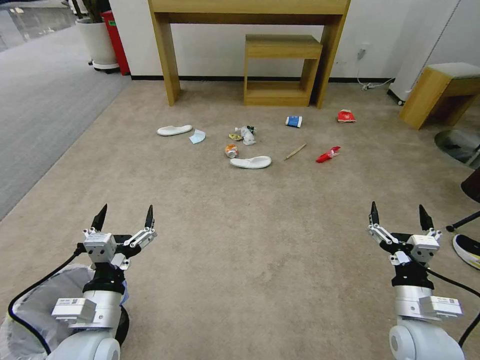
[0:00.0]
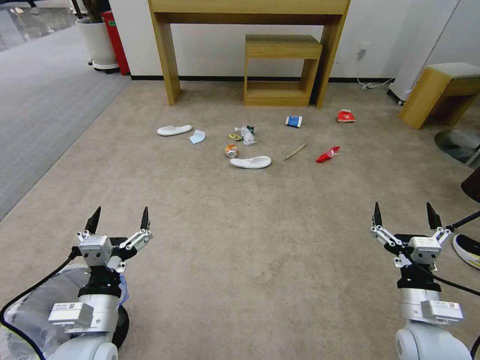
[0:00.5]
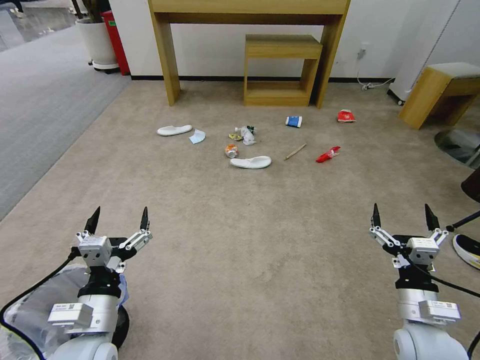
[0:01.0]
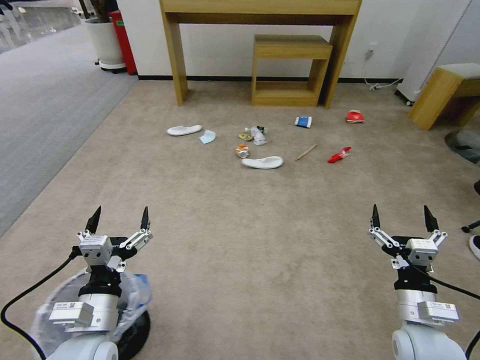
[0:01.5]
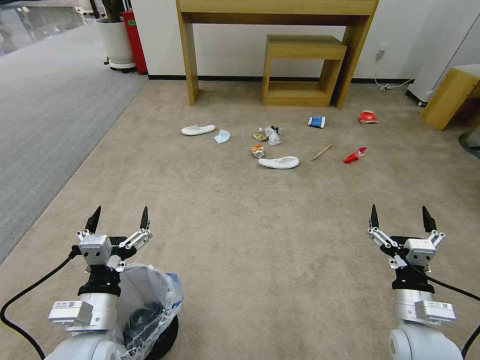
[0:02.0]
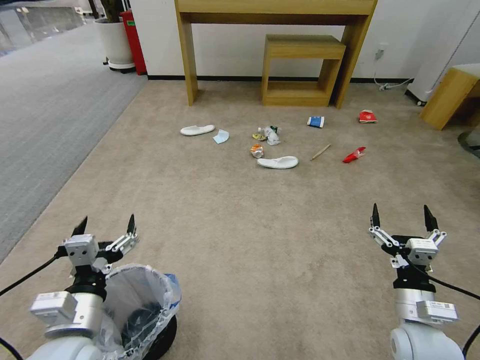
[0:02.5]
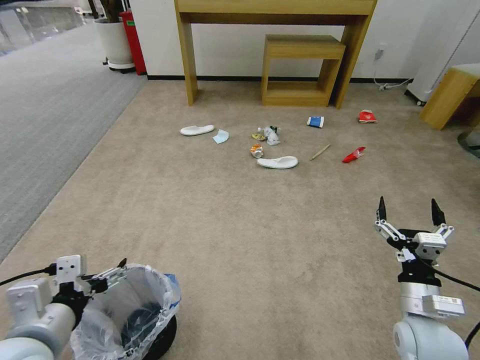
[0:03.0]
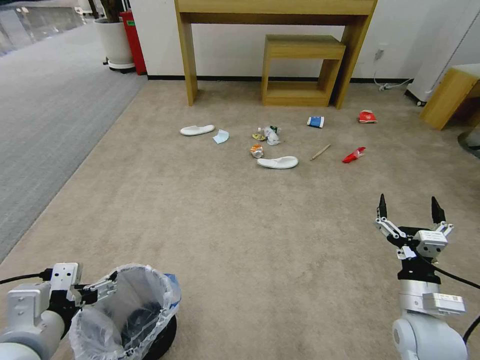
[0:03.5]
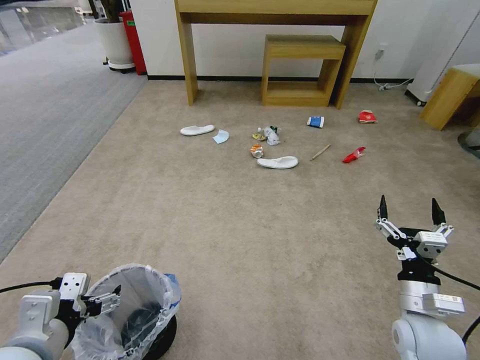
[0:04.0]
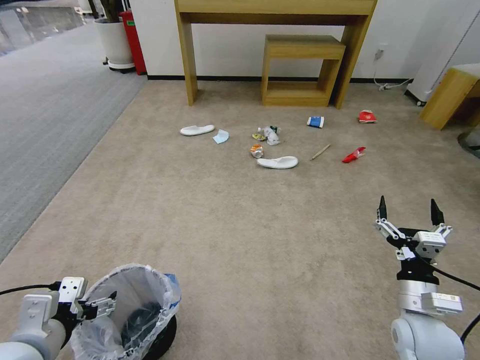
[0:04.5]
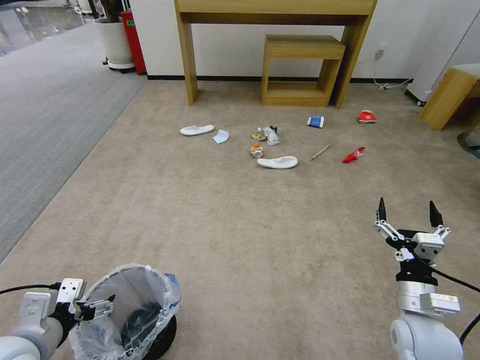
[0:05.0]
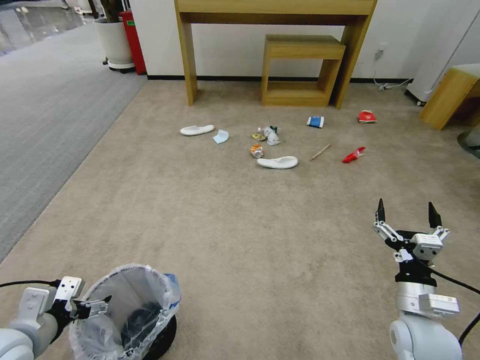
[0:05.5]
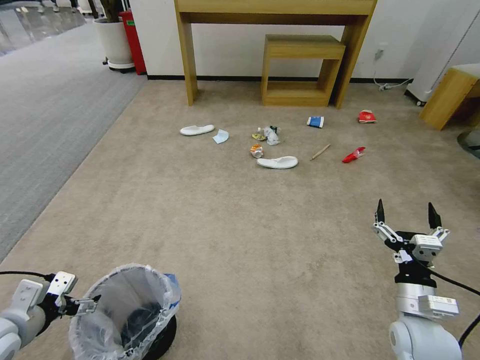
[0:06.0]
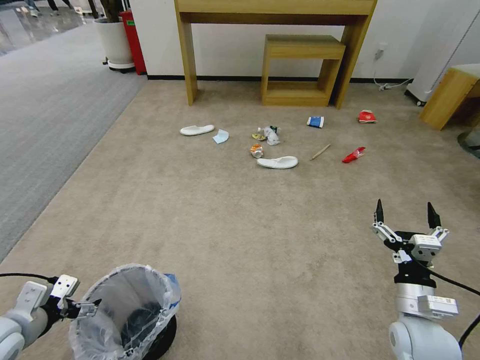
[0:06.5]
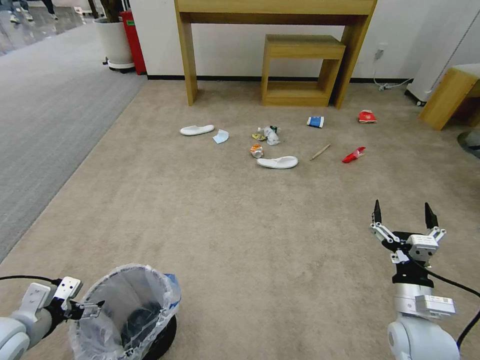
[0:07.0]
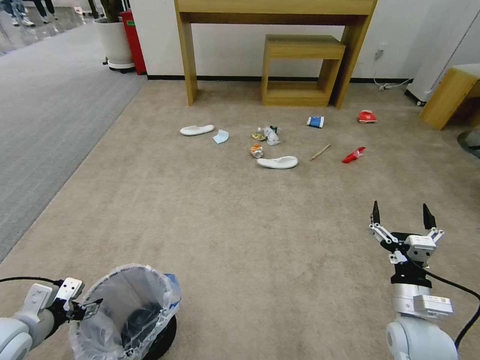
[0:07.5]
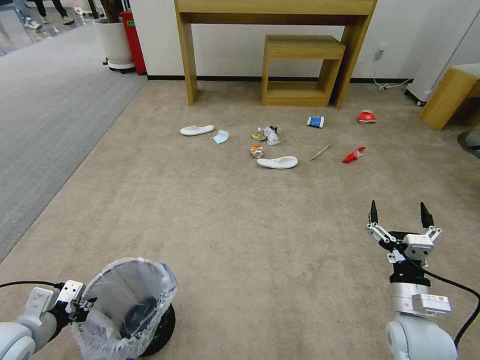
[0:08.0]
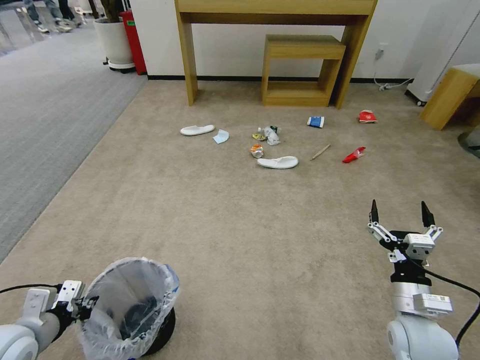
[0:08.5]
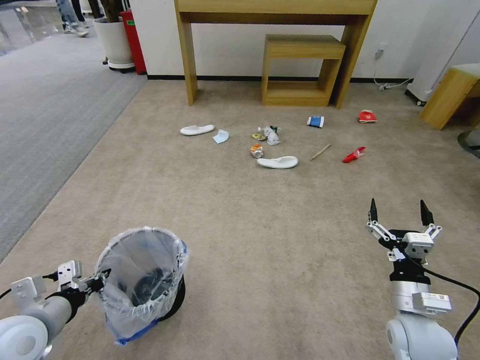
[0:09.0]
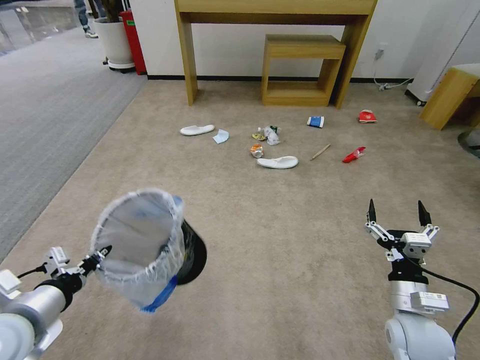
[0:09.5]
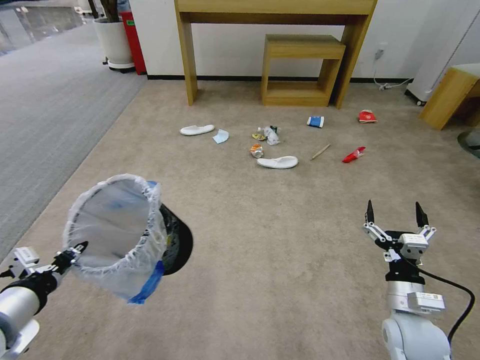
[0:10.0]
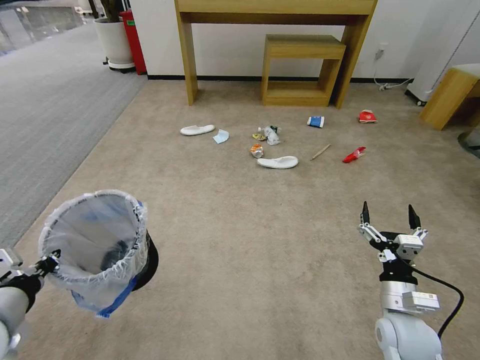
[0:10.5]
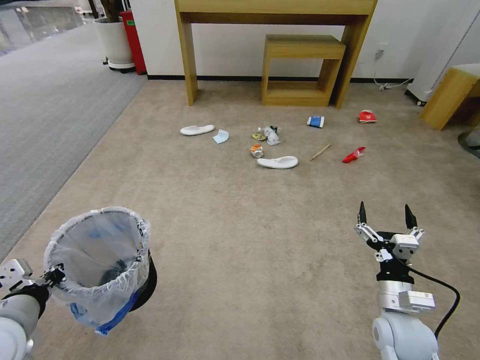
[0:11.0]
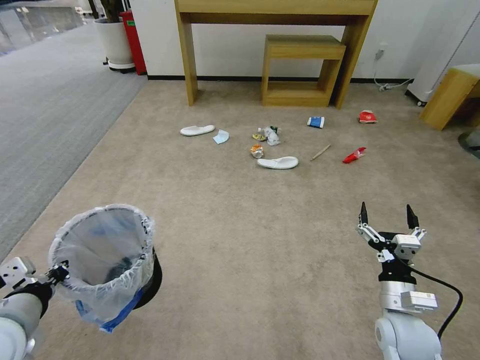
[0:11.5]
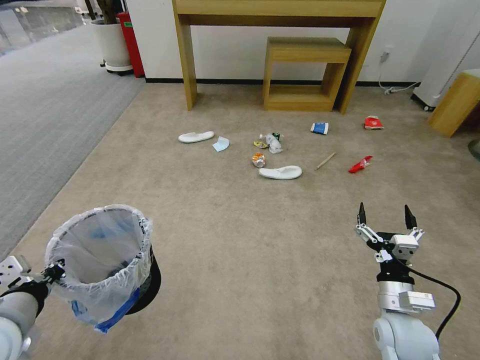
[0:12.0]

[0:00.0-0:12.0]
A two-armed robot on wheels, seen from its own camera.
Task of the whole recording: Pick up the trash bin and place the garbage on the floor into it.
0:02.0 to 0:04.0: The left gripper goes roughly 10 cm upward and to the left.
0:04.0 to 0:06.0: The left gripper travels to the left, forward and downward by some 15 cm.
0:06.0 to 0:08.0: The left gripper closes its fingers.
0:08.0 to 0:10.0: The left gripper shifts some 10 cm upward.

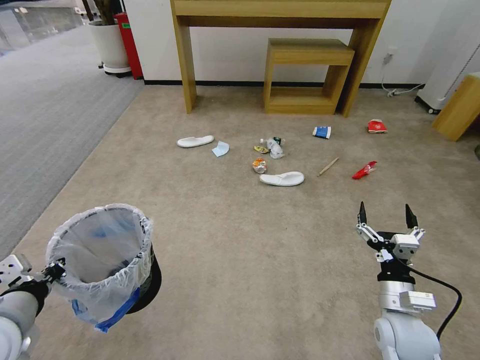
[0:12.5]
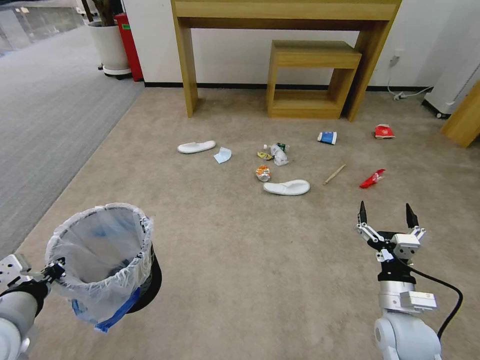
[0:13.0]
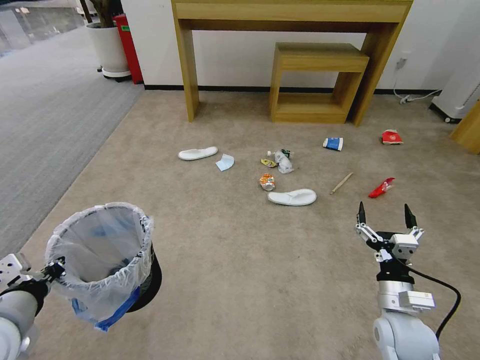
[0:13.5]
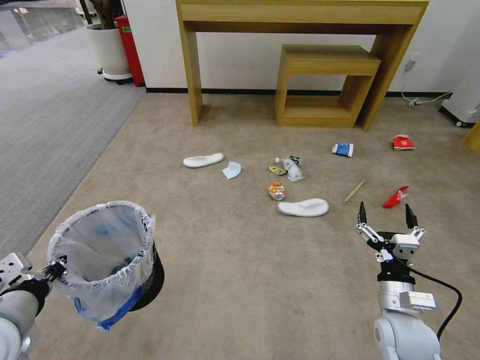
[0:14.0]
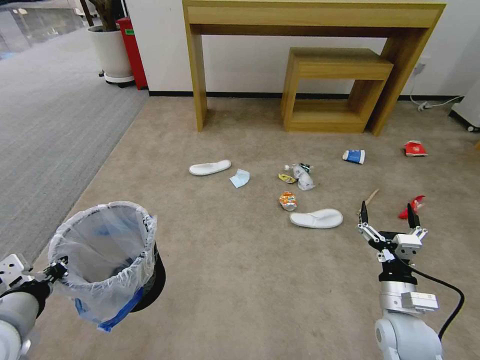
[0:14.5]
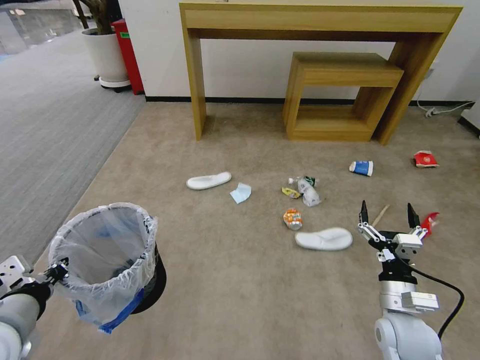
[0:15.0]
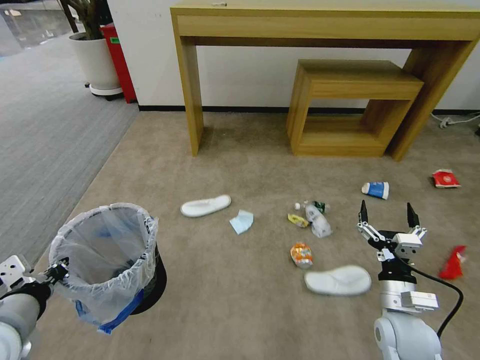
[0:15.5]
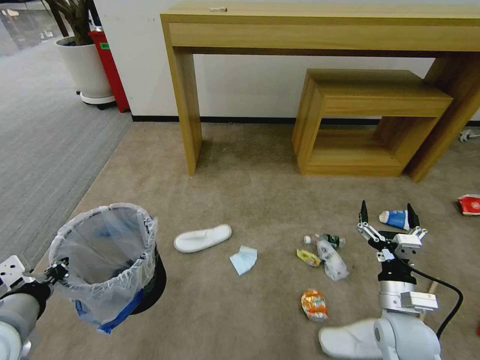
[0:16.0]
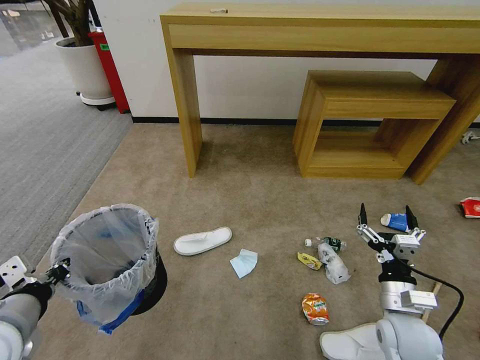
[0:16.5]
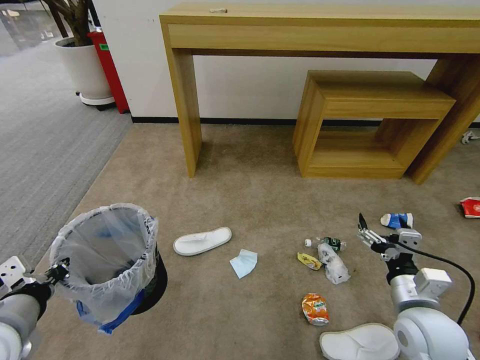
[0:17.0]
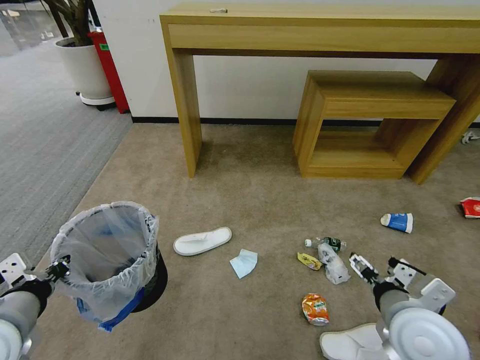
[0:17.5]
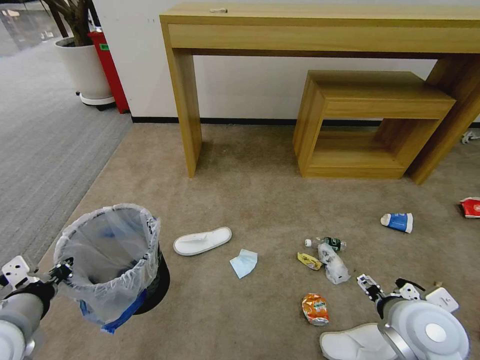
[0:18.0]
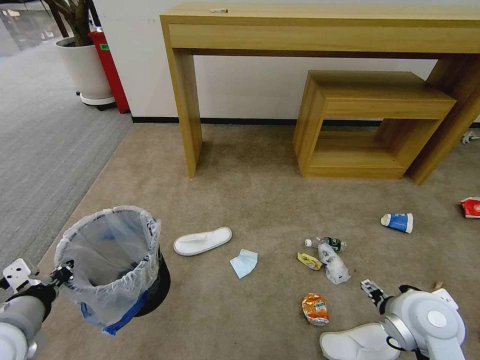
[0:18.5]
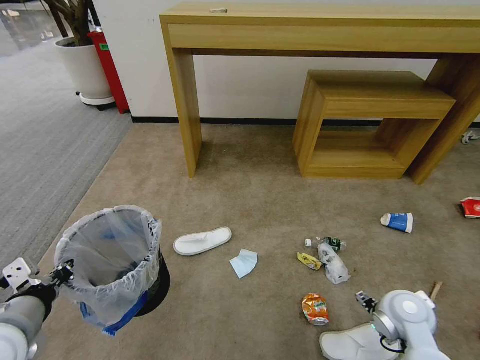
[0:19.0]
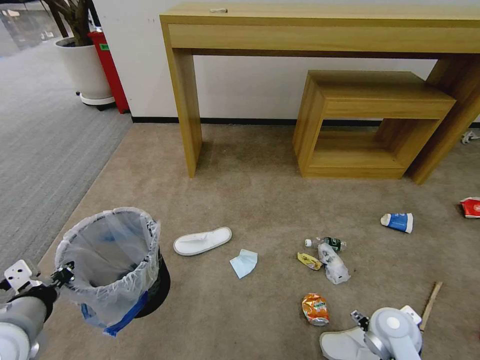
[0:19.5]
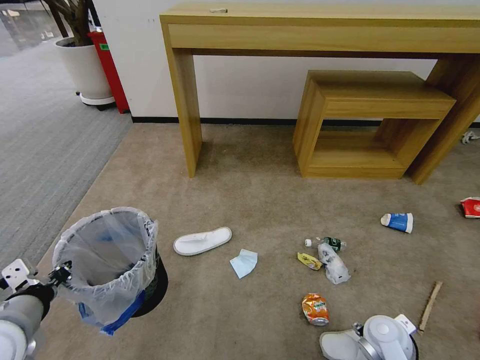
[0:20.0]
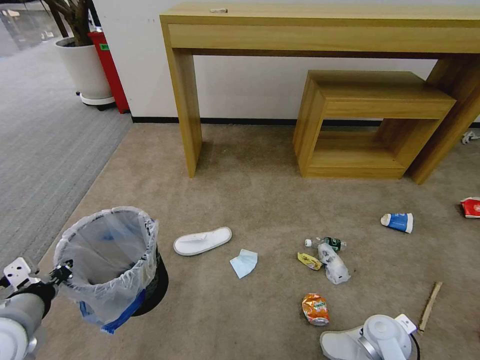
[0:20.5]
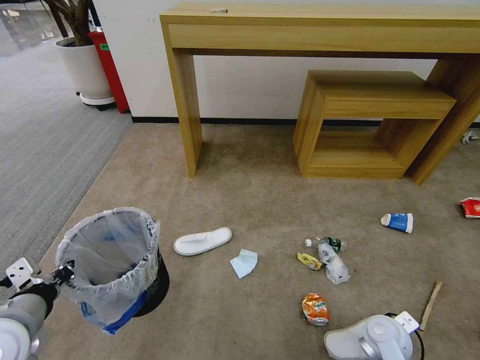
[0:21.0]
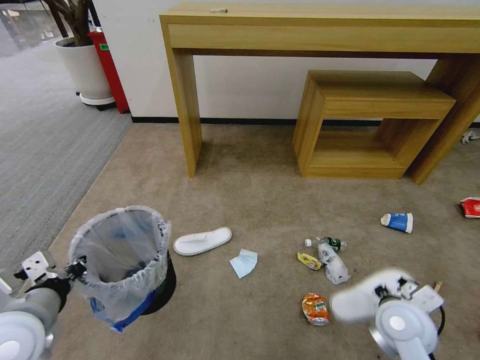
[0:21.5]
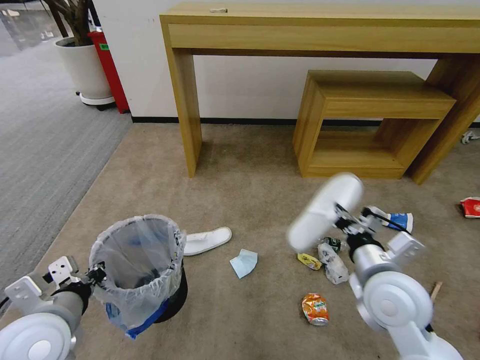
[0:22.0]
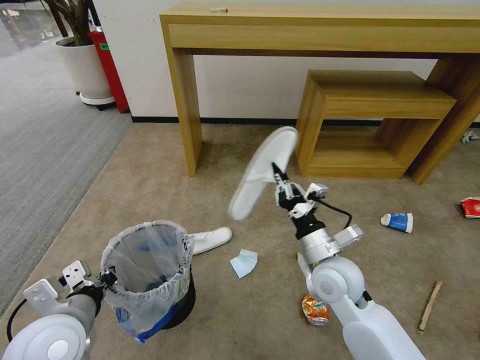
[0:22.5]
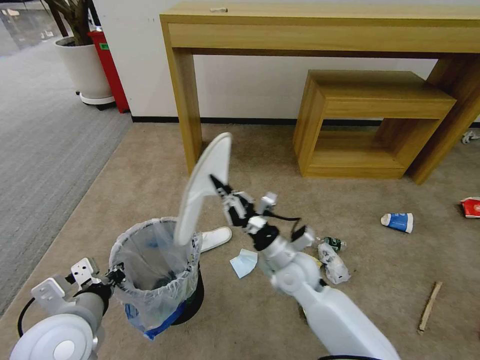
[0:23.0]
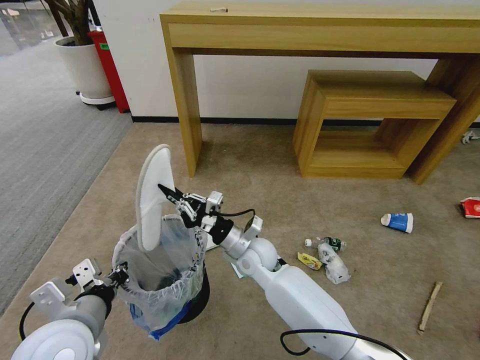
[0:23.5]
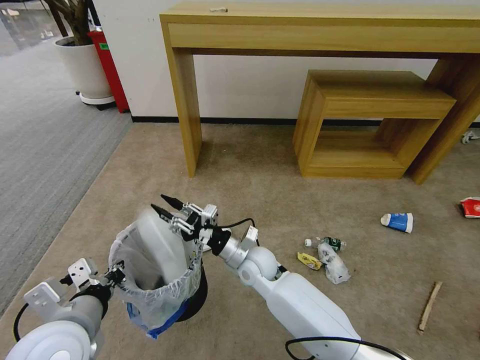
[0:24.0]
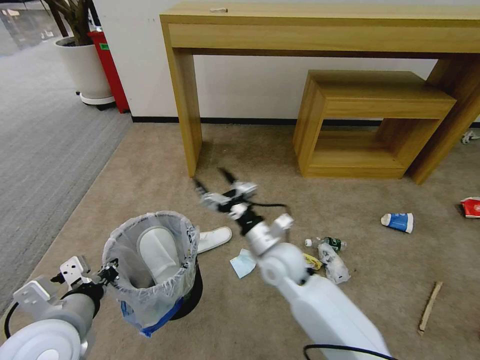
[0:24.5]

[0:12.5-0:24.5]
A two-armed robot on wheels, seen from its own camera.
Task of the whole recording: Pick up the trash bin and place the garbage on the floor into it.
0:16.5 to 0:18.5: The right gripper heads upward, covering roughly 10 cm.
0:18.5 to 0:20.5: The right gripper travels downward by roughly 20 cm, and closes up.
0:20.5 to 0:22.5: The left gripper travels to the right by roughly 5 cm. Meanwhile the right gripper goes some 25 cm upward and to the left.
0:22.5 to 0:24.5: The right gripper travels to the left by about 10 cm, and opens.

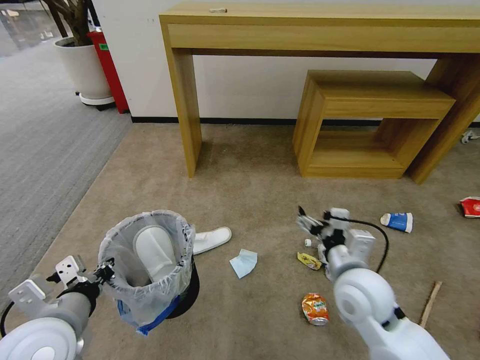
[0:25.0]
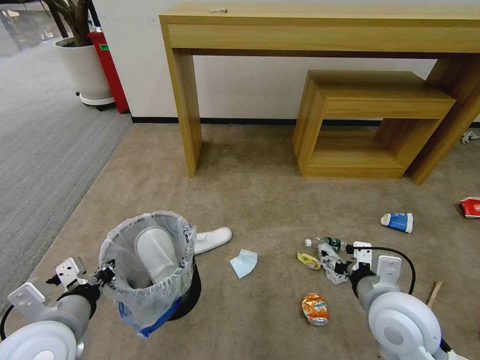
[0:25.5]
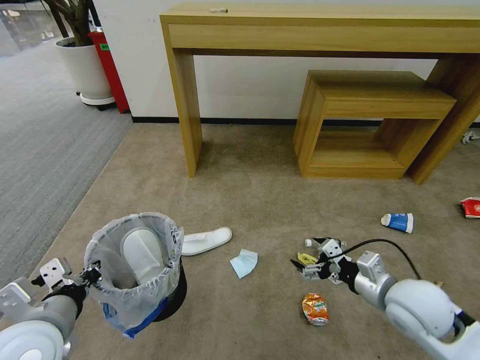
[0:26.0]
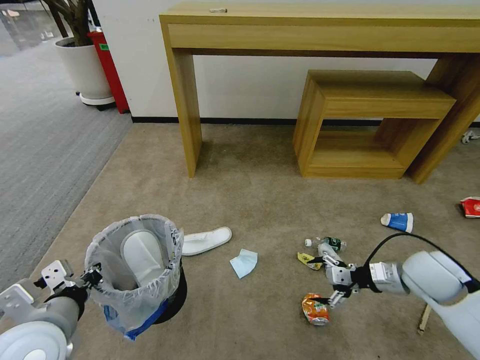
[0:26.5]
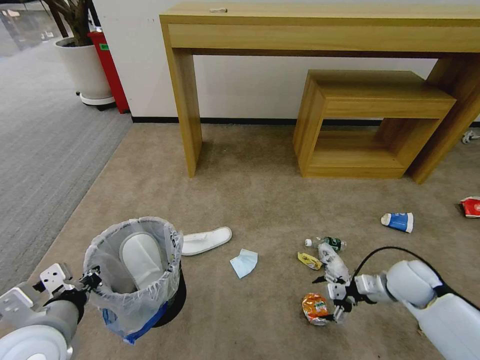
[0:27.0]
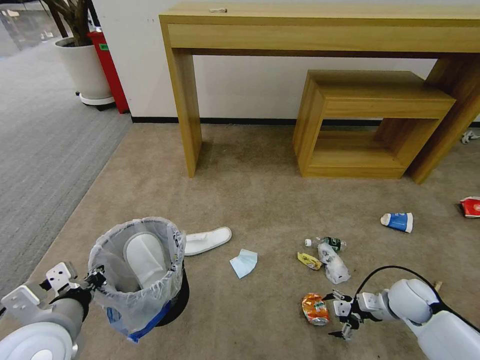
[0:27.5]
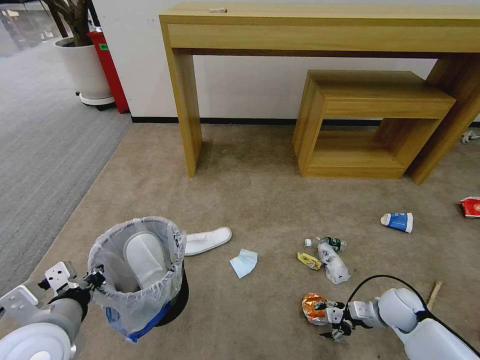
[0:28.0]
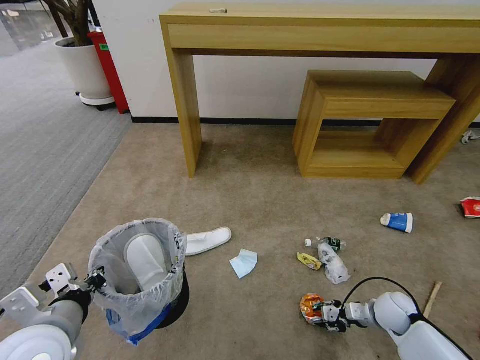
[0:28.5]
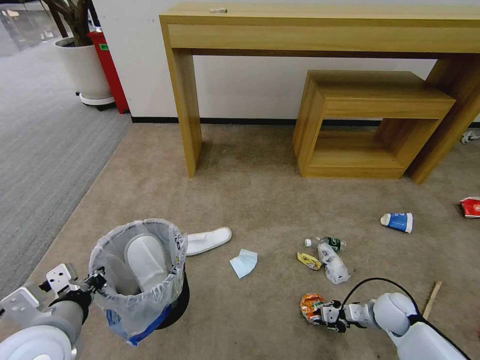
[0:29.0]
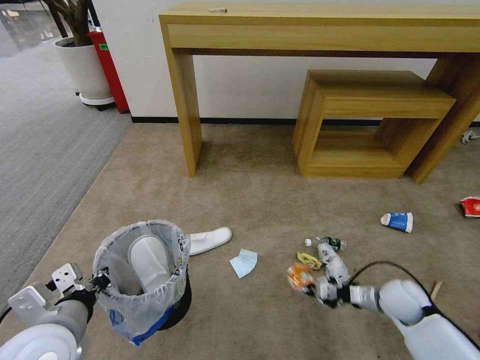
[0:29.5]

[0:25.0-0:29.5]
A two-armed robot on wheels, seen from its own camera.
Task of the whole recording: Pick up the trash bin and place the garbage on the floor into it.
0:25.0 to 0:27.0: The right gripper goes some 20 cm to the right and downward.
0:27.0 to 0:29.5: The right gripper goes roughly 5 cm downward, and closes.
